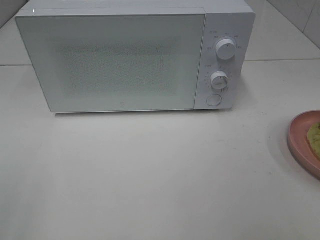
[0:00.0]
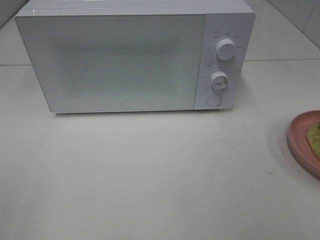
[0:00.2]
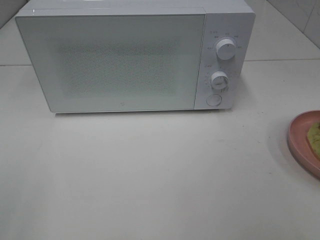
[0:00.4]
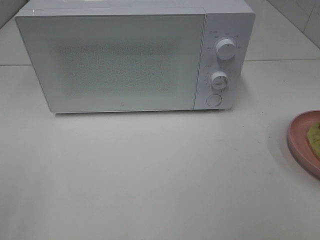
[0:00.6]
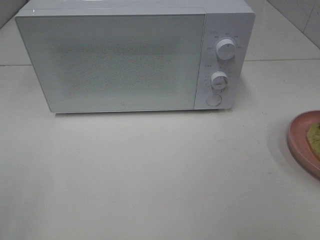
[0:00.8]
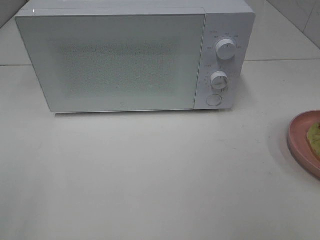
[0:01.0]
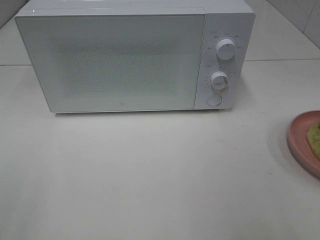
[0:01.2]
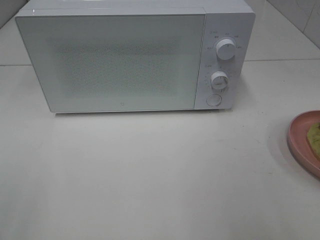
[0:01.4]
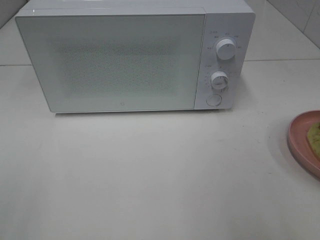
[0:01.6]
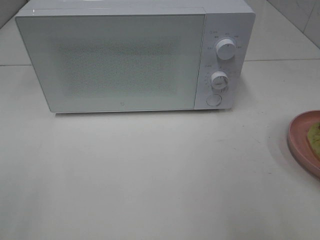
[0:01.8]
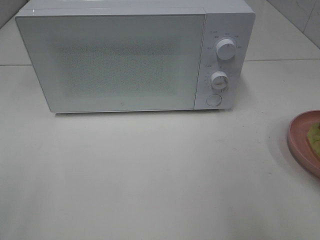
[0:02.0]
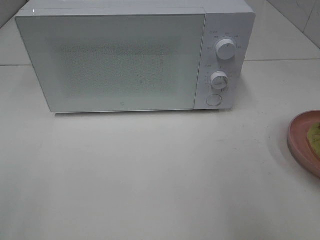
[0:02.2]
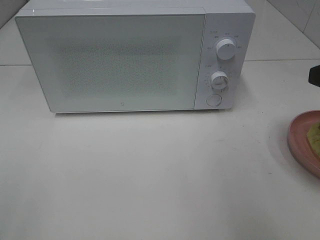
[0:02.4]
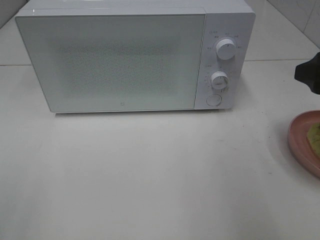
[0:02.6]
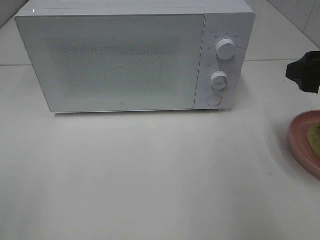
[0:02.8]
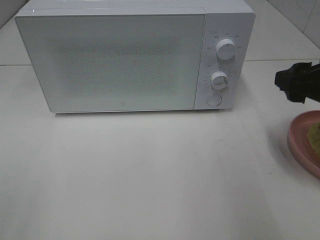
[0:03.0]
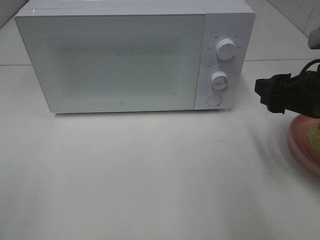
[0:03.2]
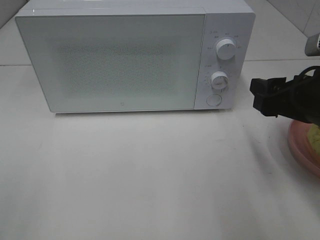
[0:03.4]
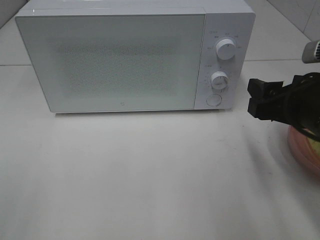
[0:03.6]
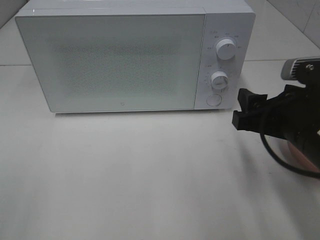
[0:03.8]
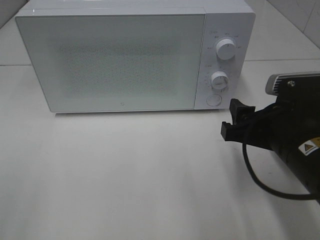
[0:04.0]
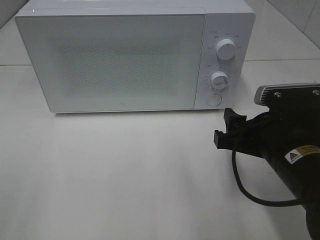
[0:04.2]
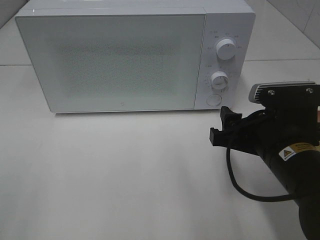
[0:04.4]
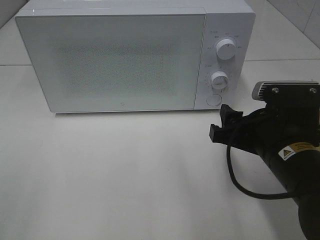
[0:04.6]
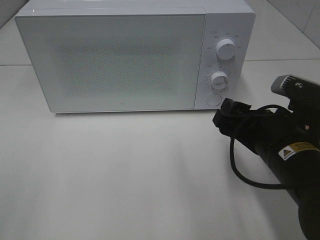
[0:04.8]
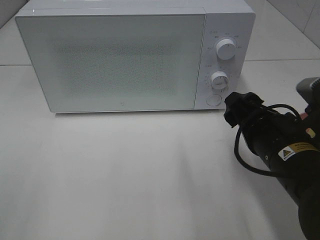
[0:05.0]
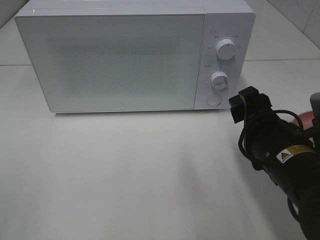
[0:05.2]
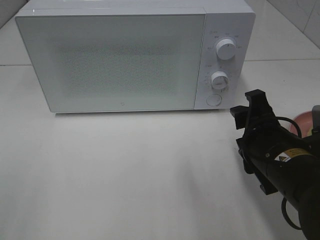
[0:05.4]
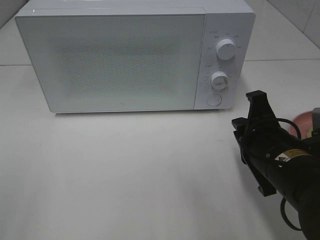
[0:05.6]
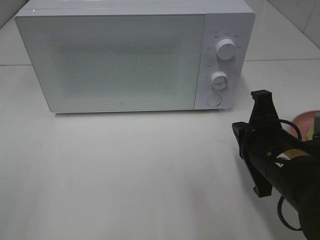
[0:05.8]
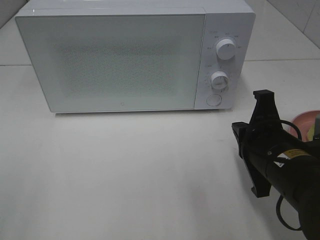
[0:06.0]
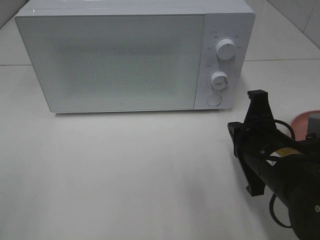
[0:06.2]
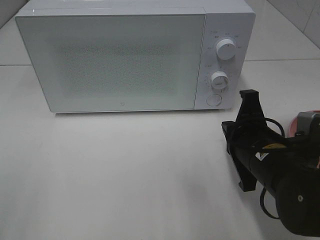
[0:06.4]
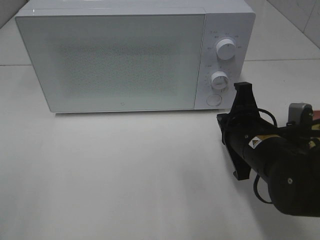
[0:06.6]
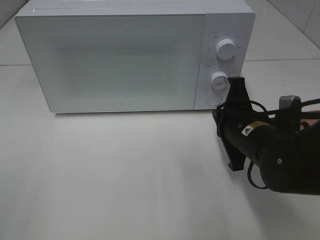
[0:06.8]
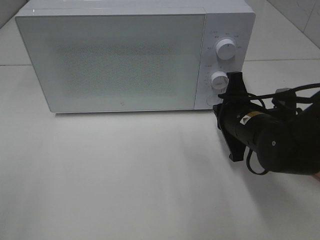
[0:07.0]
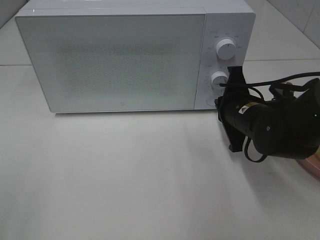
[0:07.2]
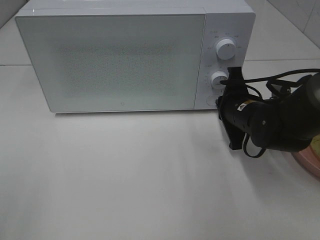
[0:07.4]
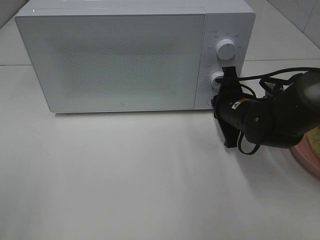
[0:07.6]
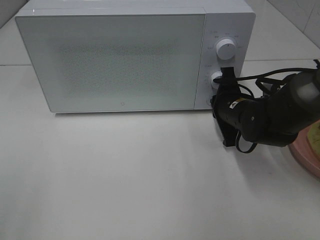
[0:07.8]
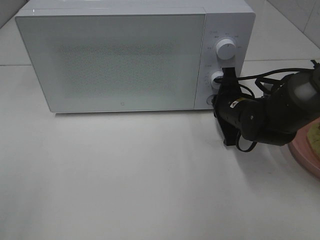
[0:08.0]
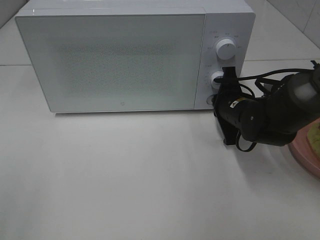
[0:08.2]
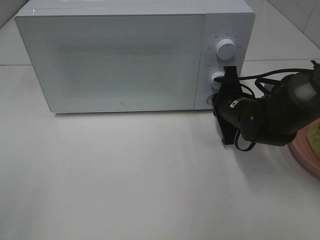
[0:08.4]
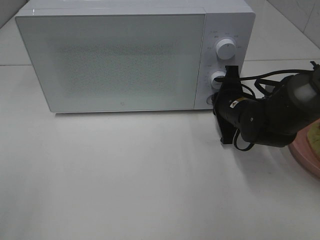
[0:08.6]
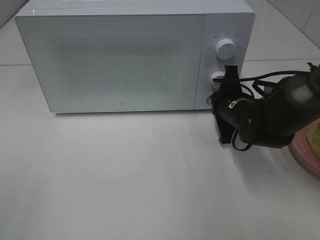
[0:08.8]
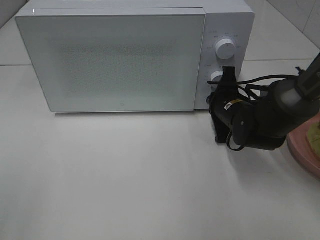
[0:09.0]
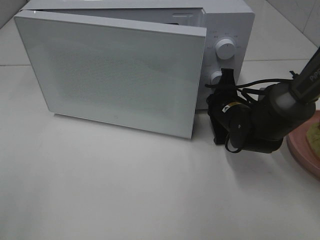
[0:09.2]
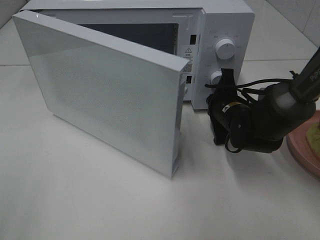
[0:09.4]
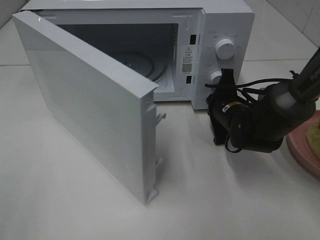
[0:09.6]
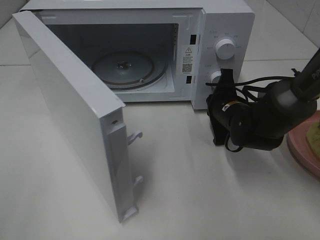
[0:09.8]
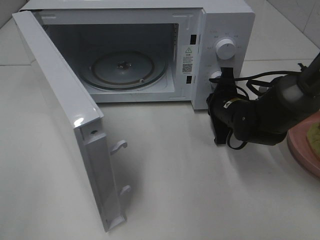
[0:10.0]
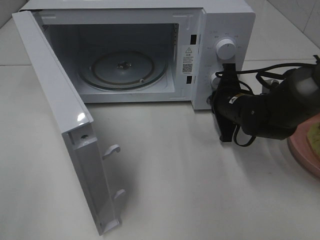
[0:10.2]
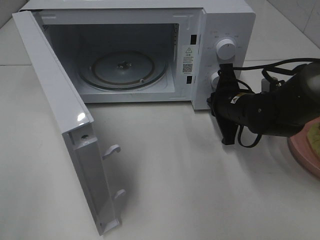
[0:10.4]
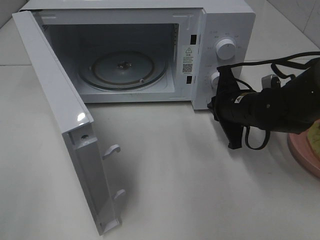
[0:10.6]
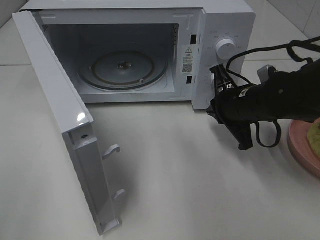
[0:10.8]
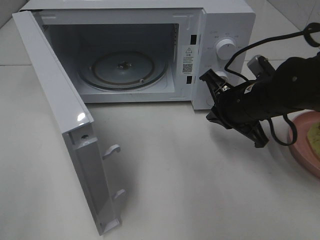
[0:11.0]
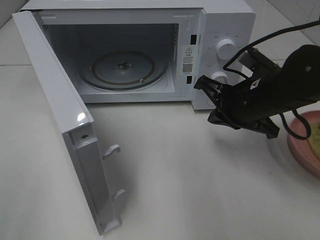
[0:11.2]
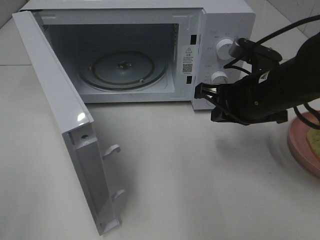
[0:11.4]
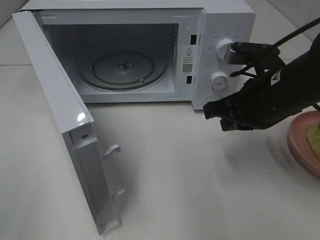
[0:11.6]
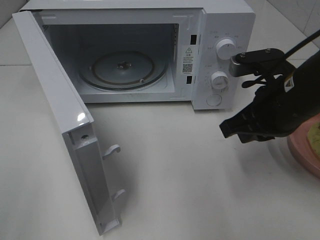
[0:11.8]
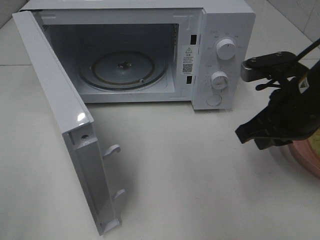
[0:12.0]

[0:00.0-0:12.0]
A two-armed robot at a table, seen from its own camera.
Task of the whole recording: Heat Sandwich.
Step, 0:00.0 to 0:10.6: Right hand: press the switch.
0:01.6 to 0:03.0: The right gripper travels forward and downward by about 15 cm.
0:03.0 to 0:04.4: The right gripper shifts approximately 10 cm to the left and downward.
0:04.4 to 0:06.0: The right gripper closes.
0:06.0 to 0:07.6: The right gripper shifts some 15 cm forward.
0:07.6 to 0:09.0: The grippers stay close to where they were, moving slightly.
0:10.4 to 0:12.0: The right gripper is displaced upward and backward by about 15 cm.

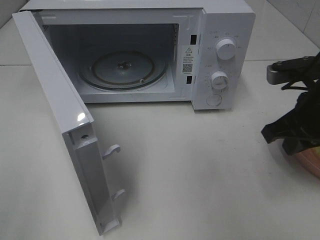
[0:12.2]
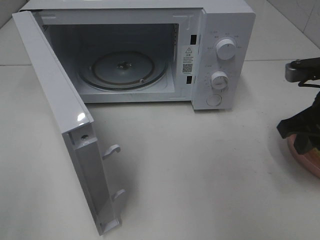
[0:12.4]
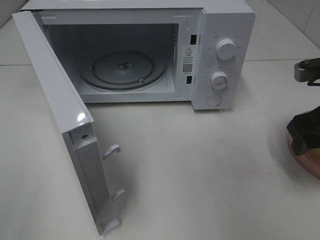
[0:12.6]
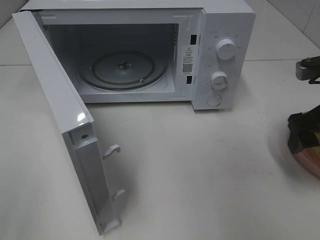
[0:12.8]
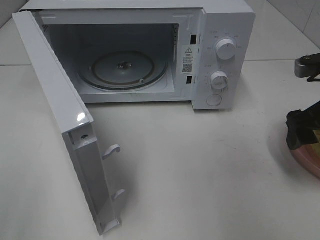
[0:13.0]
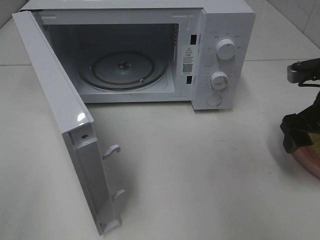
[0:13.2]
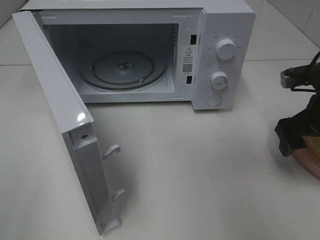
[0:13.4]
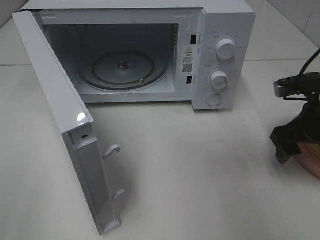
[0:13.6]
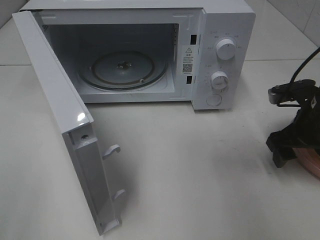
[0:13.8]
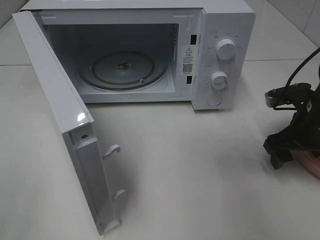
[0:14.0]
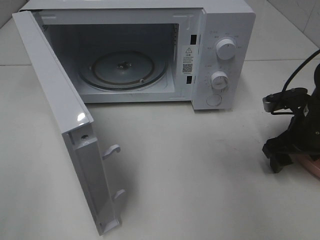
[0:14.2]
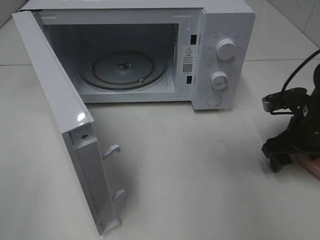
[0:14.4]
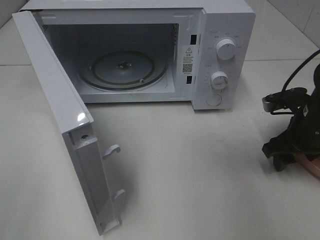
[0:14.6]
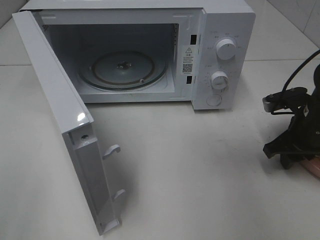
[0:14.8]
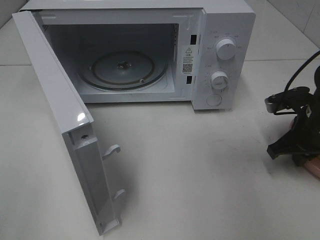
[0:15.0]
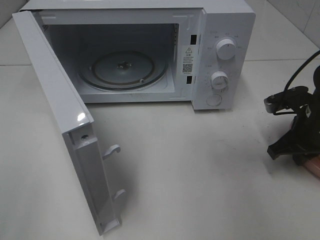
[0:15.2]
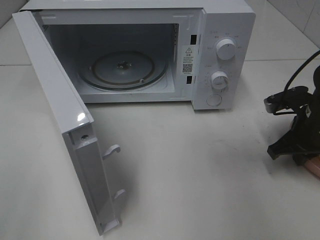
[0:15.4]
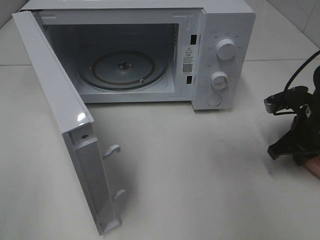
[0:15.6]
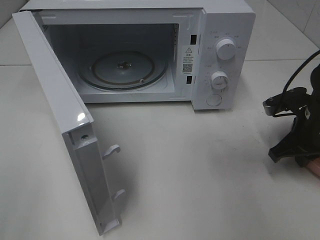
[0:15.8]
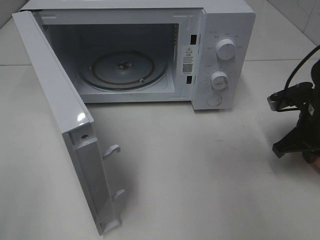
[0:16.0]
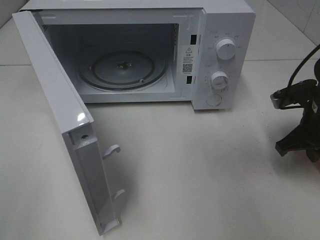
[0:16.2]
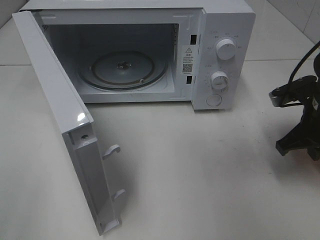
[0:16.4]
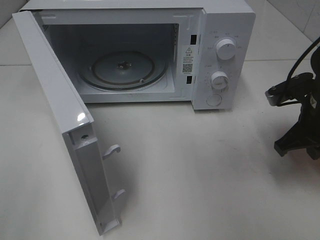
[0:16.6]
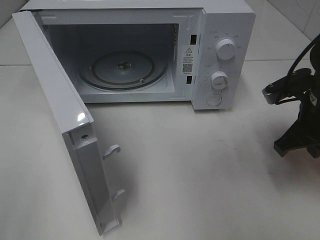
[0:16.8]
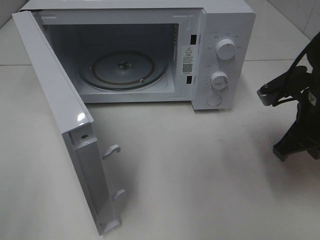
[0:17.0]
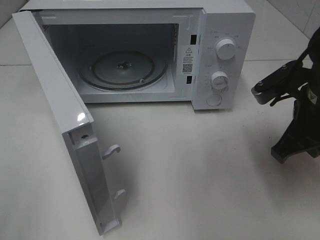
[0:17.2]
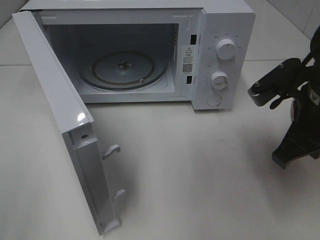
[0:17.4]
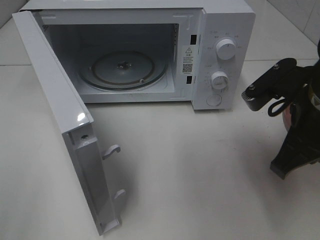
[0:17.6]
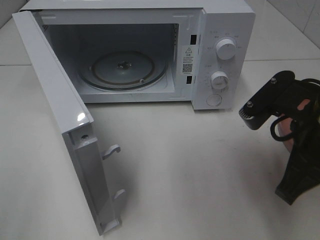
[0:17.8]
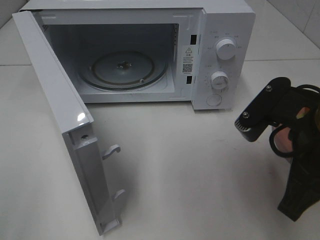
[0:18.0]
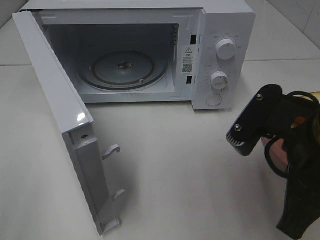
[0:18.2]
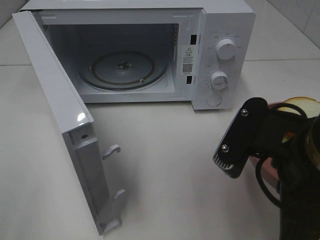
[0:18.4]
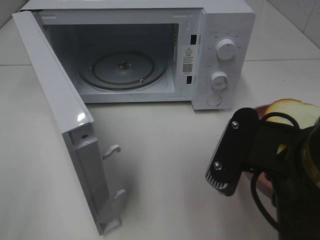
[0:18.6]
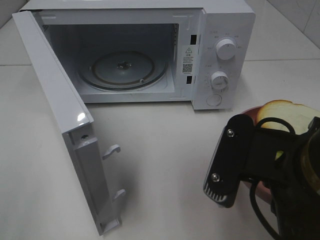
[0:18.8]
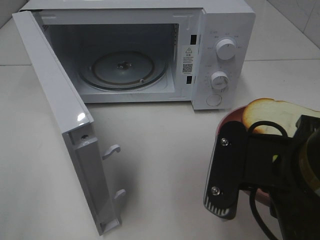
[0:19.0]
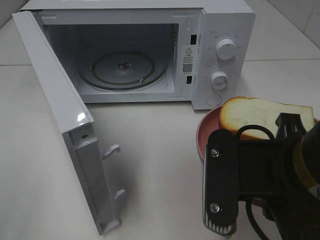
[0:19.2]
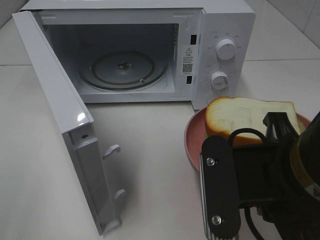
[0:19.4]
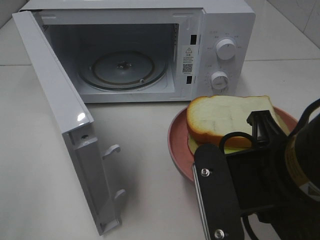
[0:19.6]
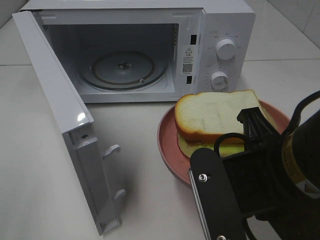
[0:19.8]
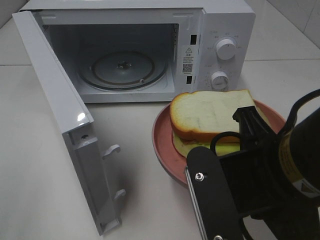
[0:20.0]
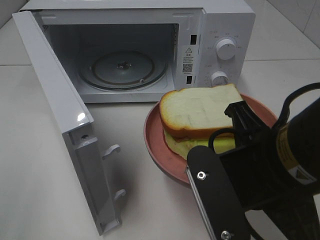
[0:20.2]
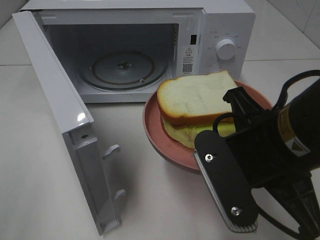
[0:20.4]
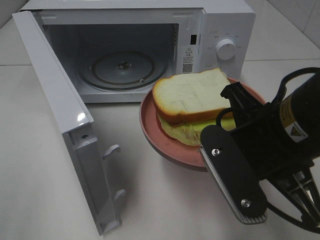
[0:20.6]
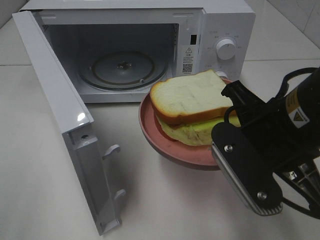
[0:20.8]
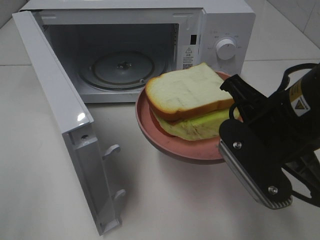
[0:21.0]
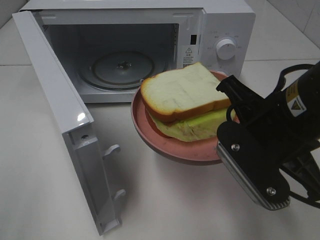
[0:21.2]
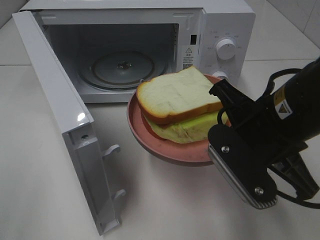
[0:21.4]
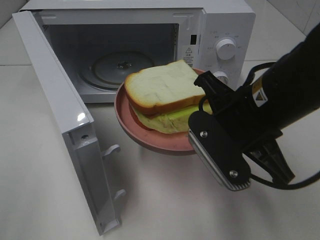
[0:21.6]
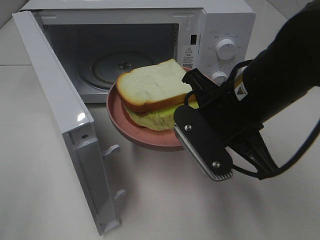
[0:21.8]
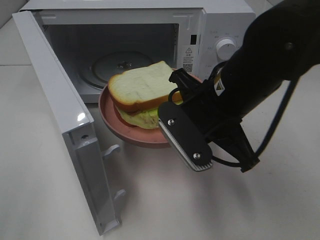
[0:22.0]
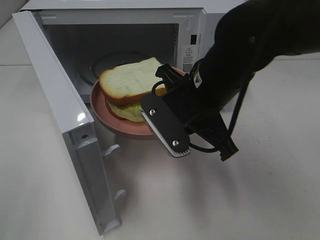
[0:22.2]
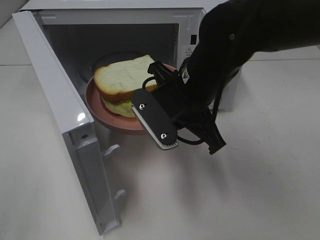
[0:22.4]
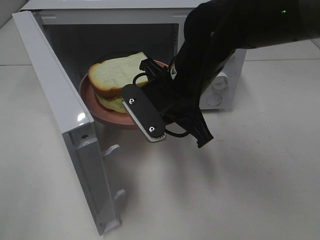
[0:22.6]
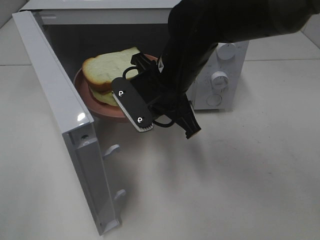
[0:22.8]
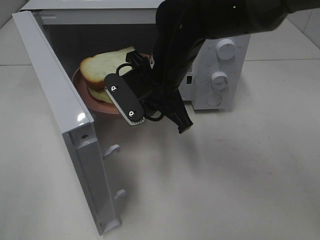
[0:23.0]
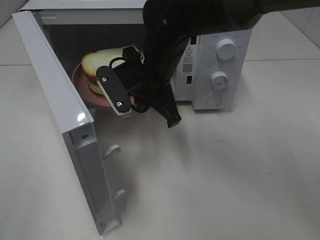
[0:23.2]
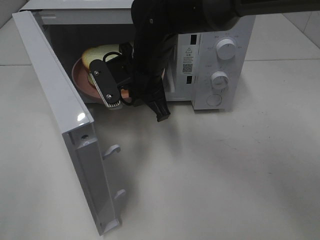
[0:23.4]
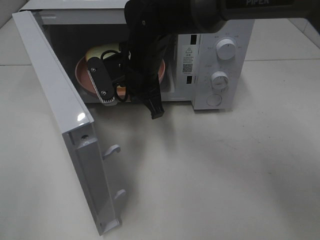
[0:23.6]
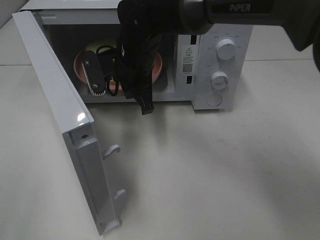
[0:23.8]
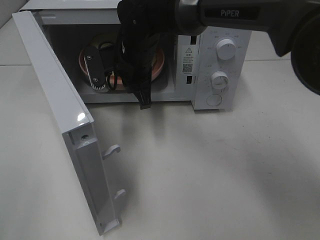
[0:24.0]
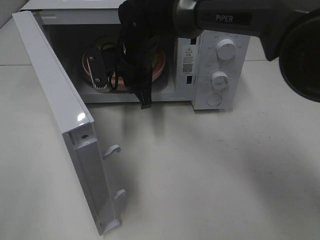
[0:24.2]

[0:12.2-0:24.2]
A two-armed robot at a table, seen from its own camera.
Task of the whole recording: Heat Sandwich.
Step, 0:12.2 to 0:16.4: Right hand: grab the plate with the sandwich.
0:12.2 to 0:13.8: The right gripper shifts some 5 cm downward, and opens its fingers.
0:13.8 to 0:15.2: The right gripper closes up.
0:15.2 to 0:16.6: The right gripper shifts by roughly 5 cm.
0:16.6 to 0:18.2: The right gripper travels backward, to the left and upward by some 20 cm.
0:18.2 to 0:19.8: The right gripper shifts by roughly 5 cm.
0:19.8 to 0:21.2: The right gripper moves forward, some 5 cm.
0:21.2 to 0:22.6: The right gripper moves forward and to the left, roughly 15 cm.
0:22.6 to 0:24.2: The right gripper shifts about 15 cm forward and to the left.
